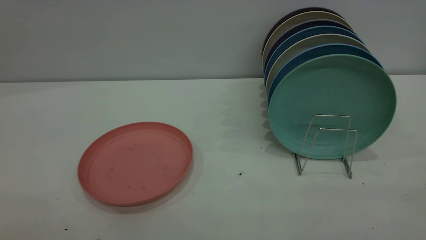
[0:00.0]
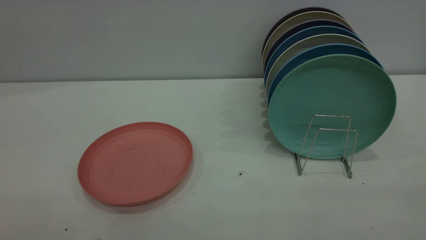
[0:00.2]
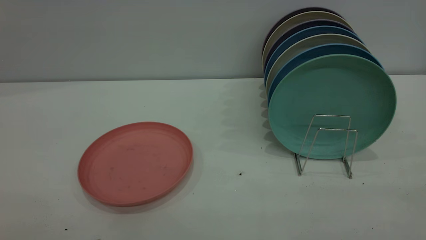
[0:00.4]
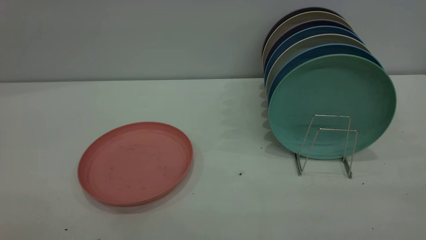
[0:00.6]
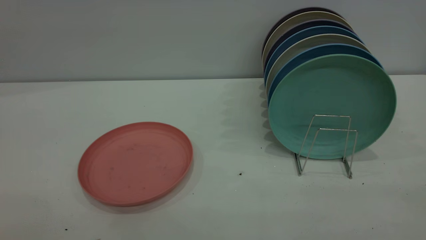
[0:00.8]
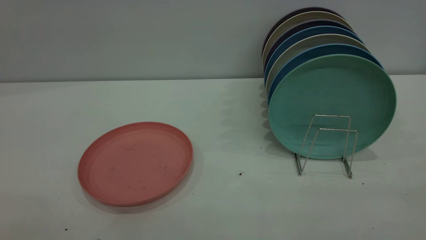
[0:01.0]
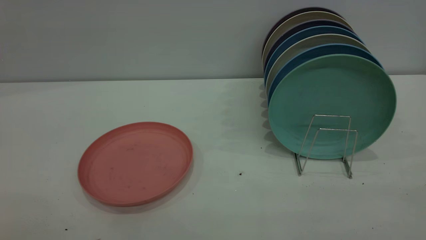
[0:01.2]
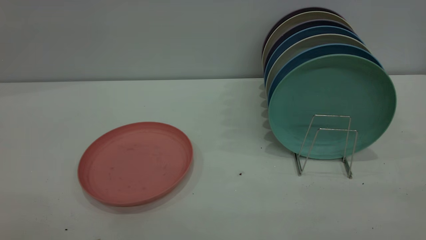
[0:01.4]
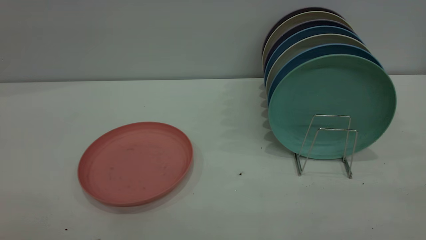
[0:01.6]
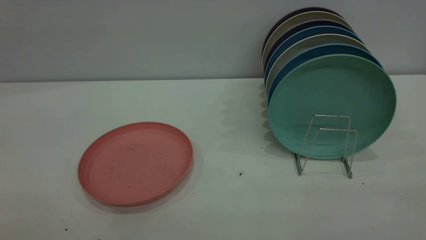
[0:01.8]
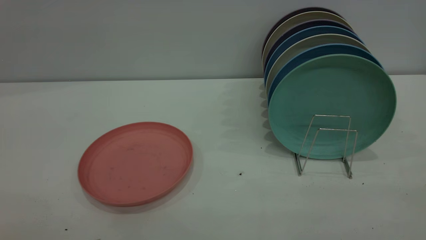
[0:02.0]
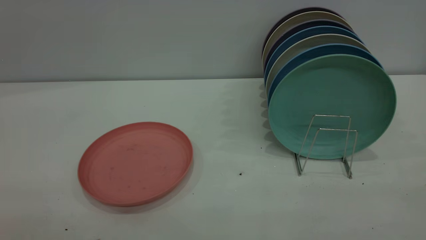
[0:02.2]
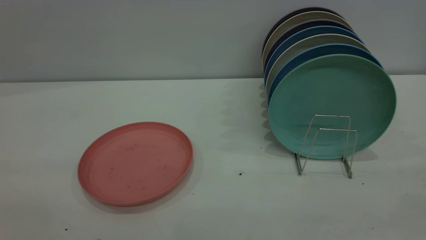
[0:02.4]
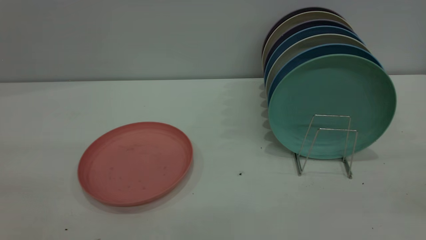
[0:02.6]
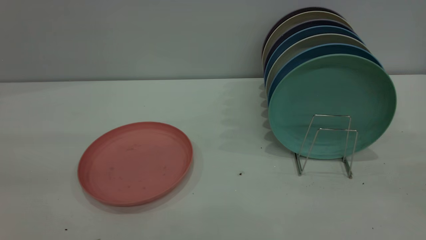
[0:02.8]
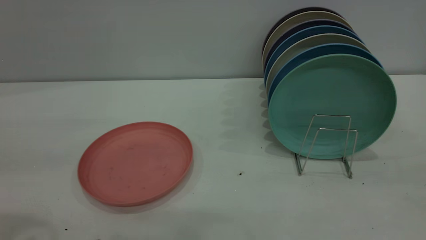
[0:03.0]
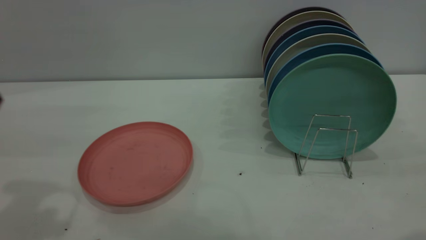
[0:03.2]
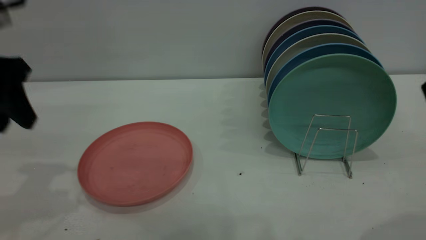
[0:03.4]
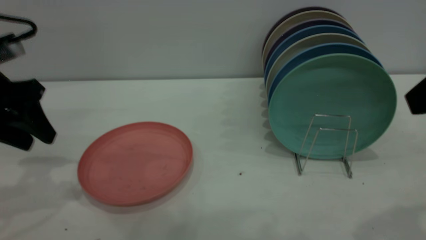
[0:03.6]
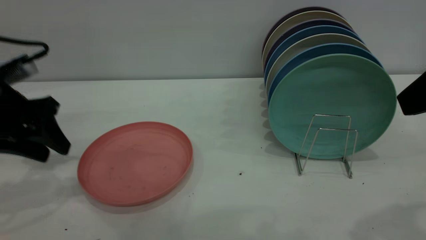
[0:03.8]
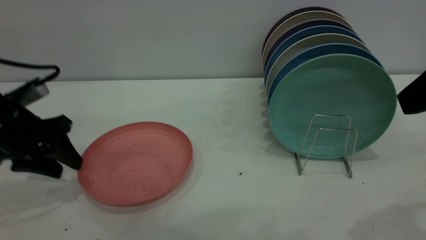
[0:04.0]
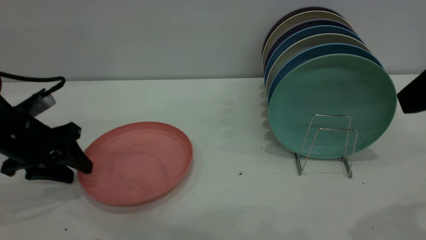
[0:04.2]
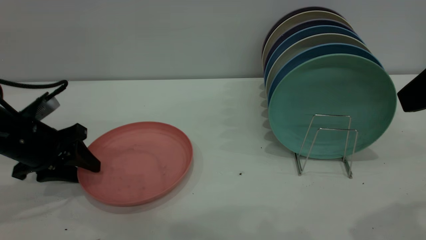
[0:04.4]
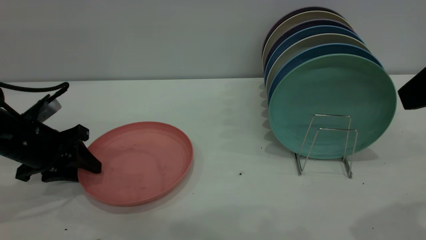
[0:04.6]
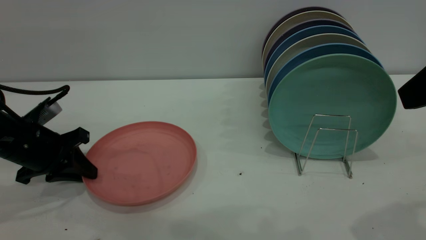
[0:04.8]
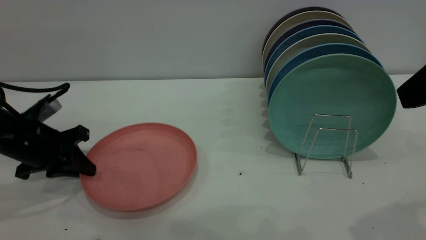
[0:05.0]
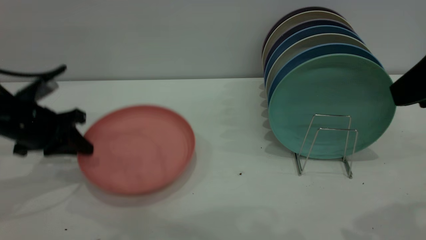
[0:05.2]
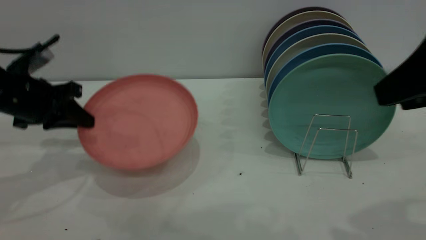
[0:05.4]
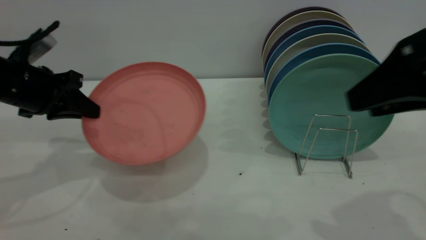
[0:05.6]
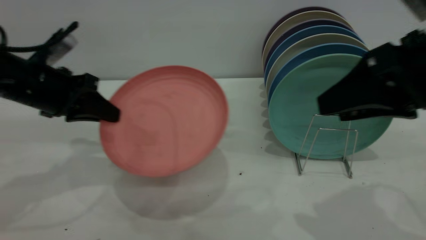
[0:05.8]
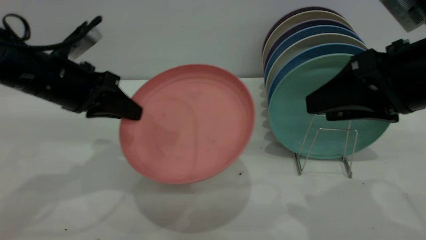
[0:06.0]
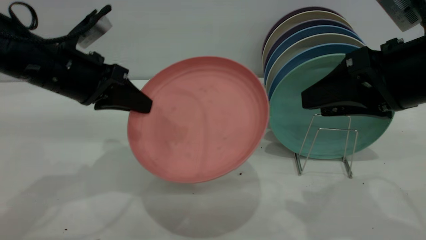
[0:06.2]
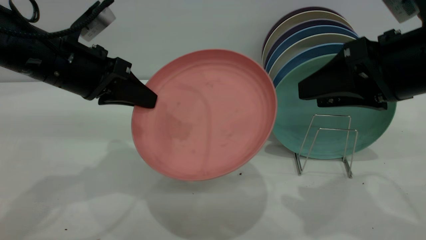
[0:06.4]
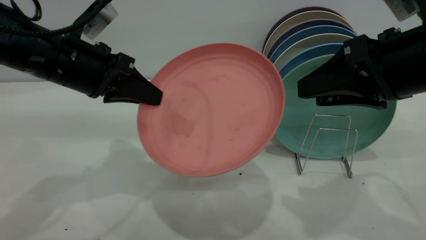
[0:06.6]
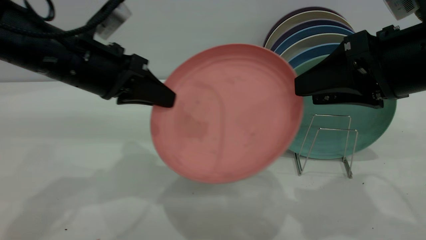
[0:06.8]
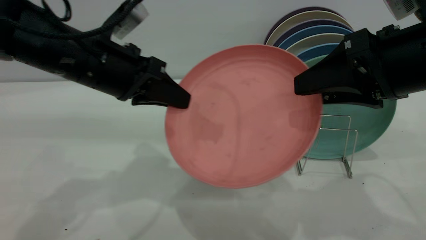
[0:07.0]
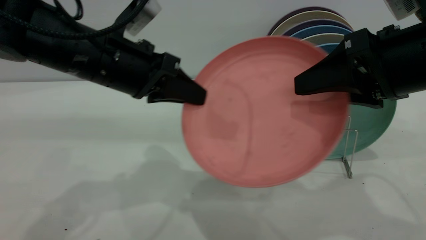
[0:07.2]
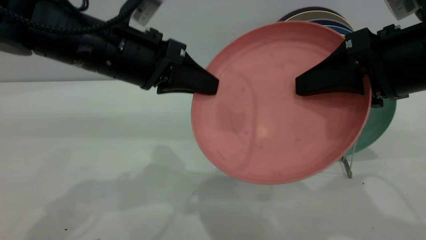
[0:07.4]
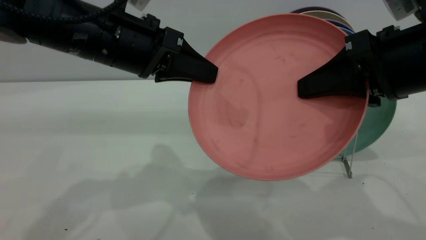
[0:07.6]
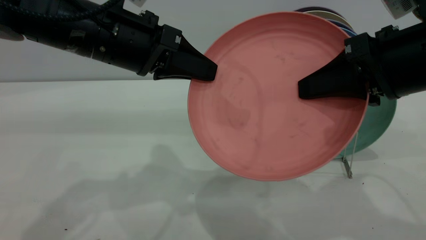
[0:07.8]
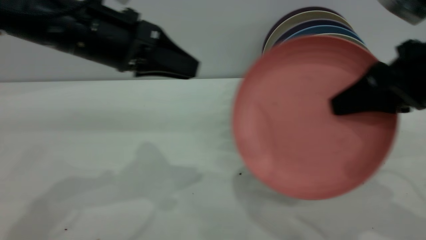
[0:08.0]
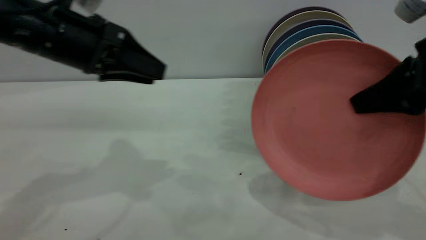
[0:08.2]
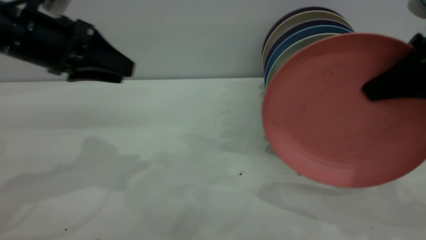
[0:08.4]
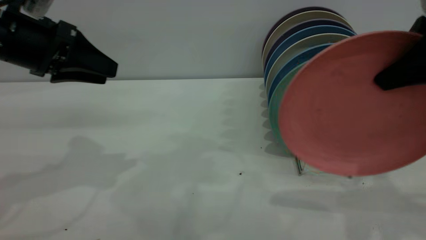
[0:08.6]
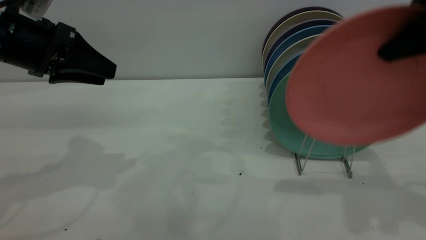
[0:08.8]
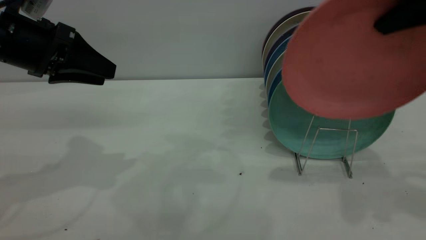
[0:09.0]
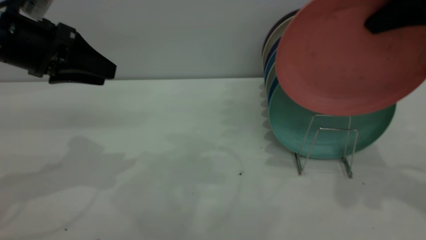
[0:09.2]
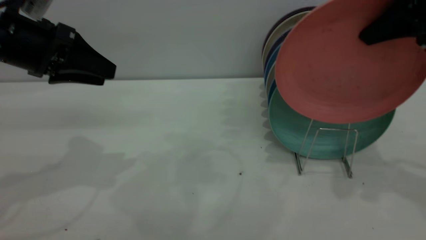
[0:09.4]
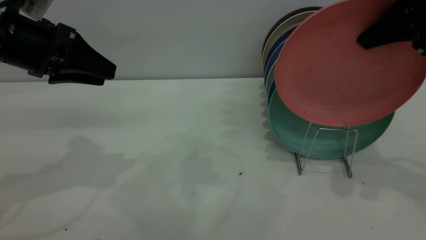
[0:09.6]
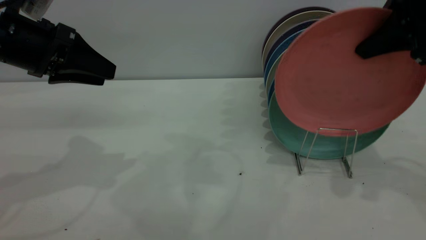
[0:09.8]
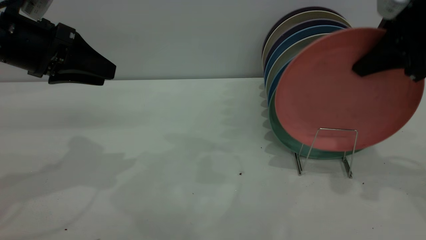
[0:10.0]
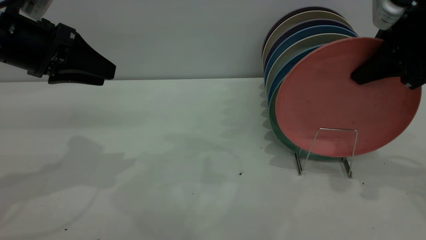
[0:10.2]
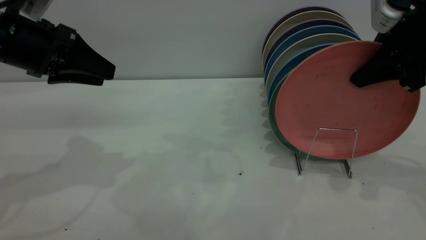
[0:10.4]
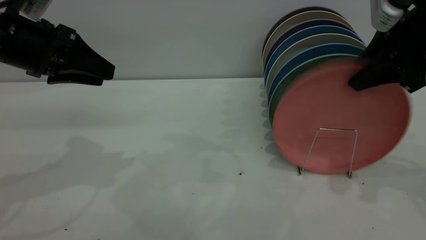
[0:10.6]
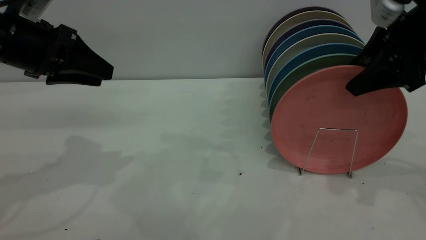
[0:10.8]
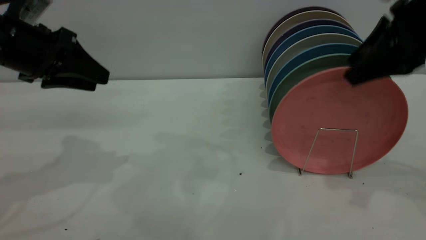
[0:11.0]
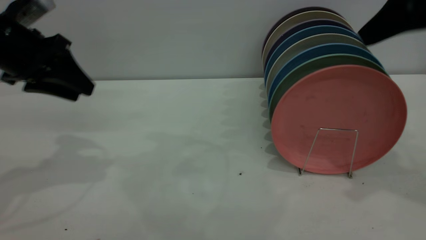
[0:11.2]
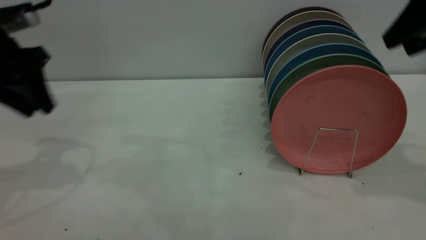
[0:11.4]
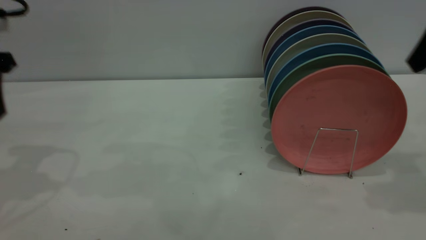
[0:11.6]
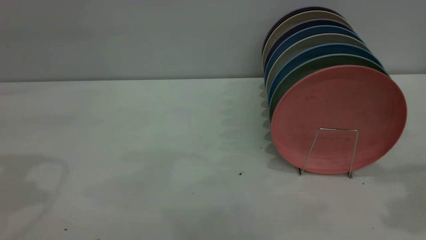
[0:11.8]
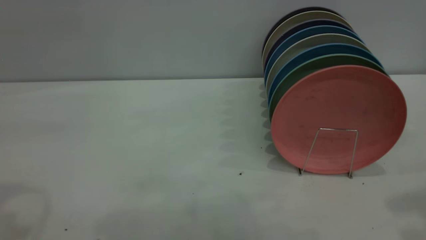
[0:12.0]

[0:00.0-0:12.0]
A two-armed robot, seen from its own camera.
Task of the whole recording: put the plate on the plate rack.
Step, 0:00.0 to 0:05.4: Pick up the plate with the left gripper.
Step, 0:05.6 to 0:07.4: Pass the plate from the left gripper to the right gripper.
Step, 0:07.6 to 0:10.8: Place the plate on the shelf.
0:00.0 to 0:01.6: The two grippers keep their place.
0:03.0 to 0:04.4: The left gripper travels downward and forward by roughly 25 cm. The right gripper shifts roughly 5 cm forward.
0:04.4 to 0:06.0: The right gripper moves downward, approximately 5 cm. The left gripper shifts some 10 cm upward and to the right, and closes.
0:06.0 to 0:07.6: The left gripper goes some 10 cm to the right and upward. Meanwhile the right gripper closes its fingers.
0:07.6 to 0:09.0: The right gripper travels upward and to the right by some 10 cm, while the left gripper heads to the left, covering about 15 cm, and opens its fingers.
0:09.0 to 0:10.4: The right gripper shifts roughly 10 cm downward.
0:10.4 to 0:12.0: The right gripper moves backward and upward, approximately 20 cm, and opens up. Meanwhile the left gripper travels upward and backward by roughly 20 cm.

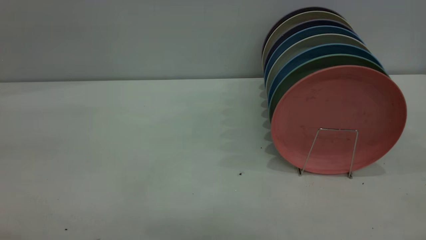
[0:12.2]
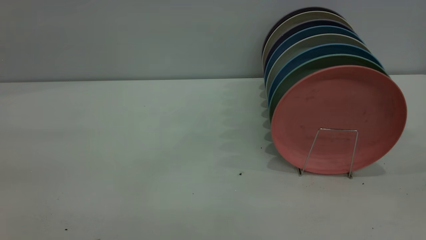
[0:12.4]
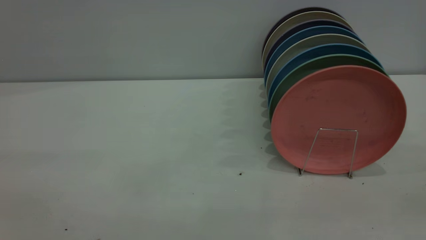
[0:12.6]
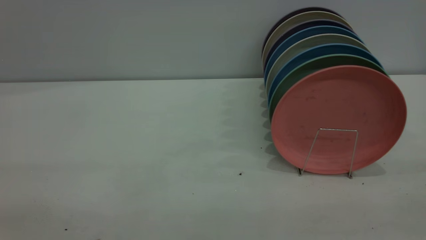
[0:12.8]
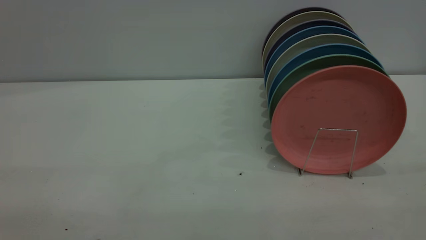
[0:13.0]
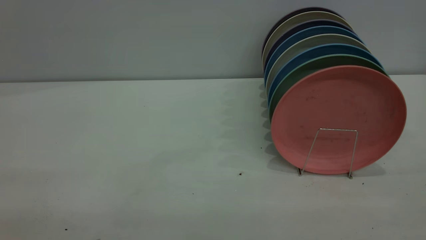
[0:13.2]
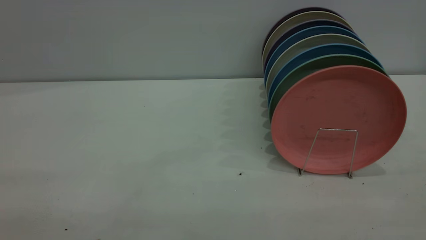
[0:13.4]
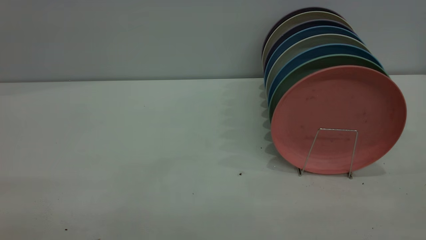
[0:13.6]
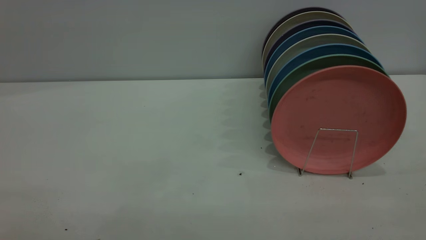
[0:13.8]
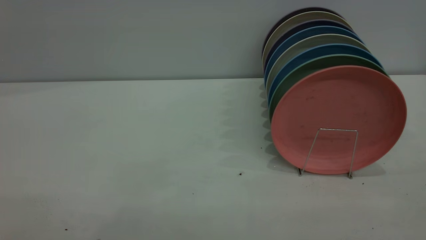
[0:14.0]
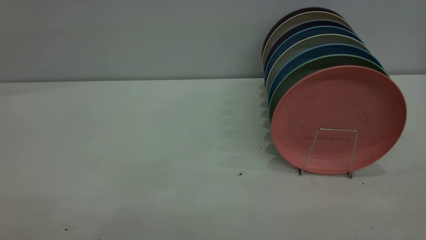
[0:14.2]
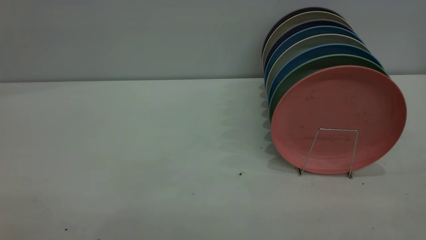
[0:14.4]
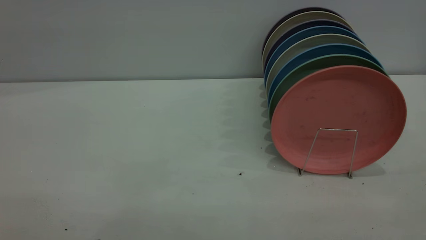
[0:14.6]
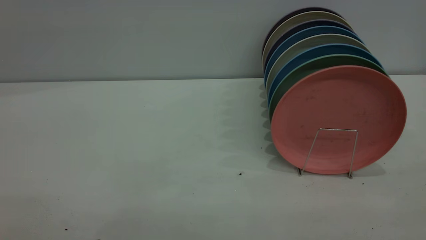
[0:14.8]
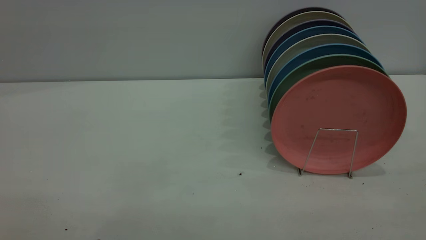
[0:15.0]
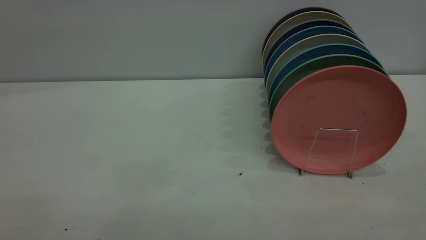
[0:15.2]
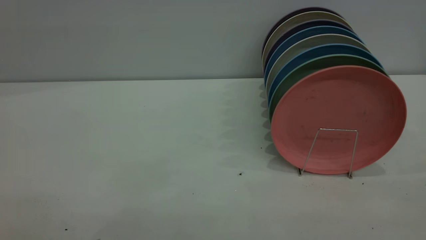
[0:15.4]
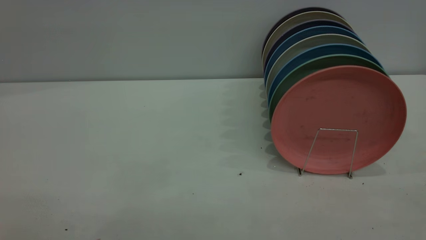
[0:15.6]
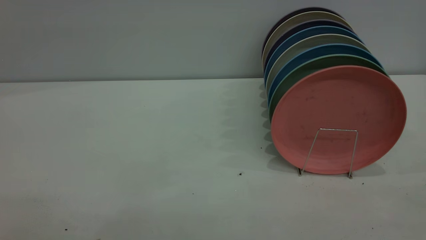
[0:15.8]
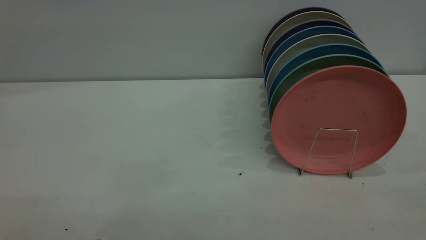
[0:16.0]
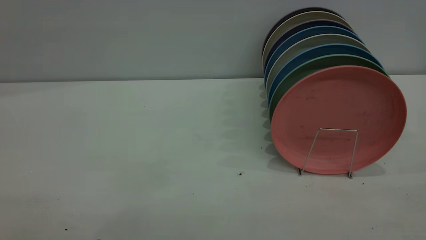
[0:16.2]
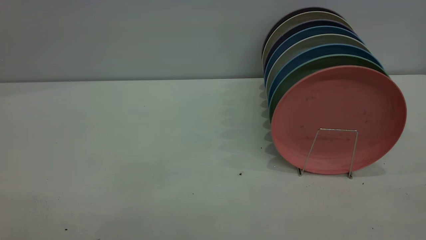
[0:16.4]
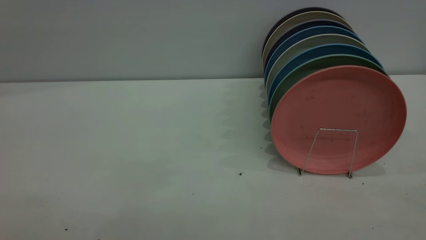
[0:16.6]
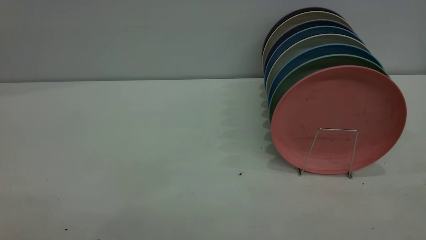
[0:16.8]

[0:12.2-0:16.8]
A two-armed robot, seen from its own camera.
Task of the whole recording: put the plate on the plate rack.
0:13.8 to 0:15.2: Both grippers stay about where they are.
